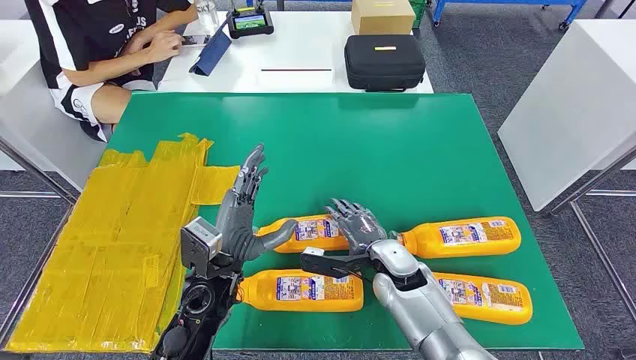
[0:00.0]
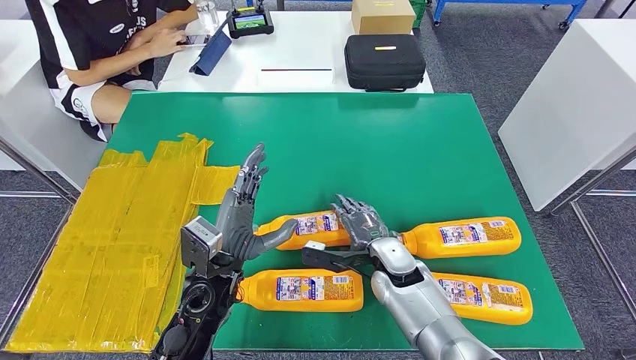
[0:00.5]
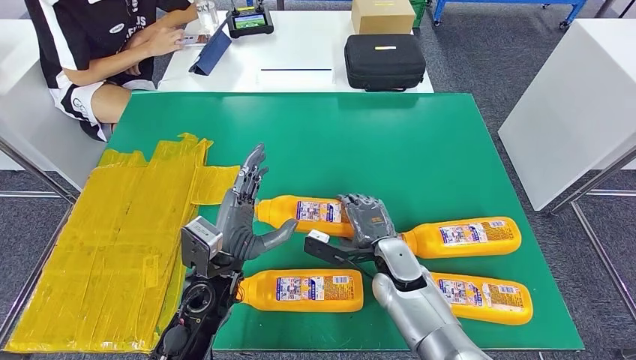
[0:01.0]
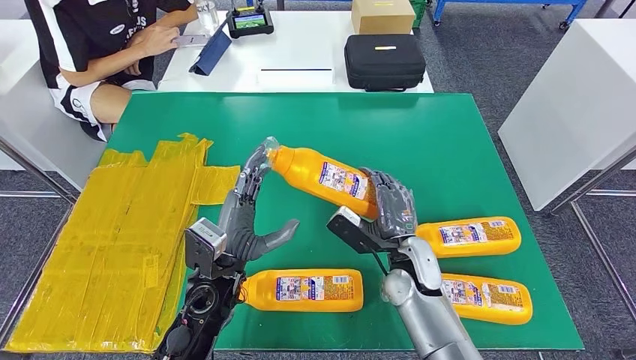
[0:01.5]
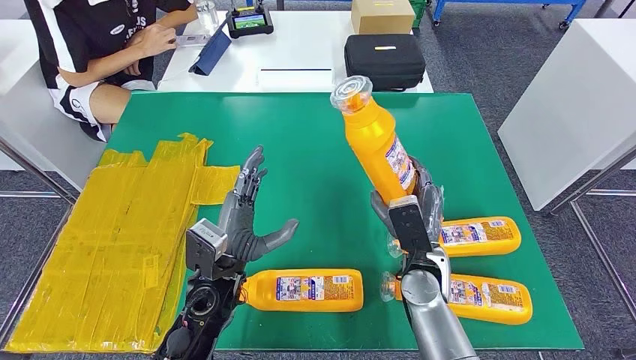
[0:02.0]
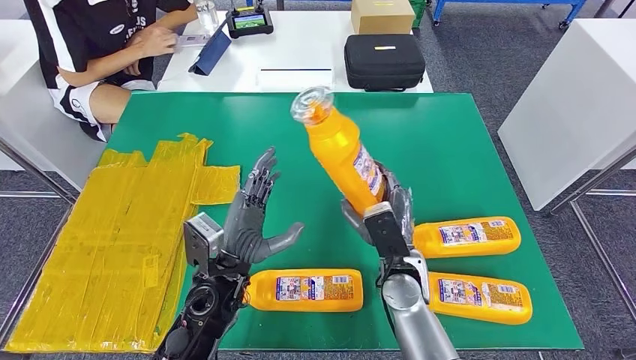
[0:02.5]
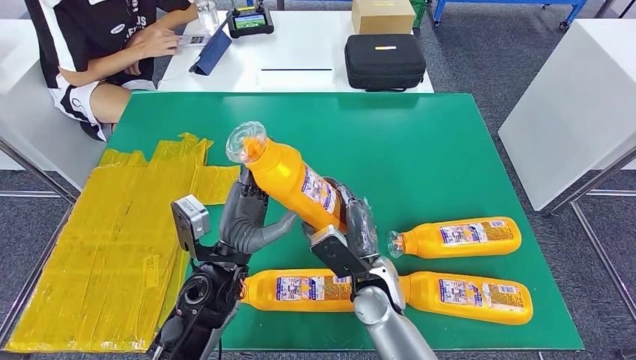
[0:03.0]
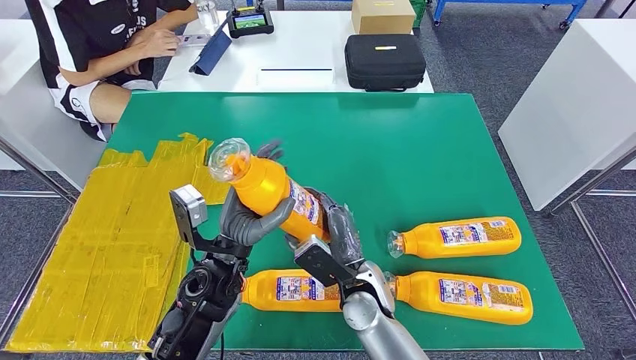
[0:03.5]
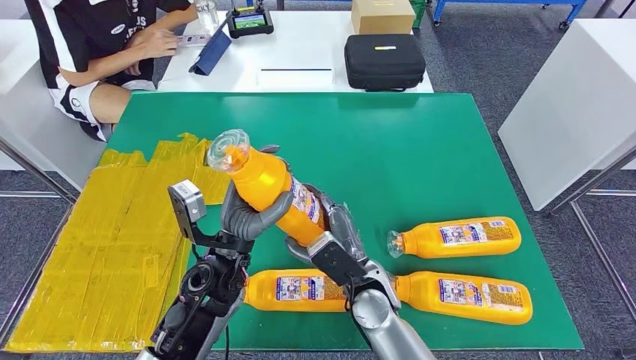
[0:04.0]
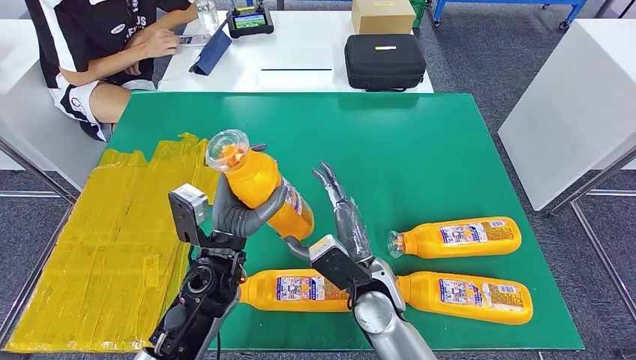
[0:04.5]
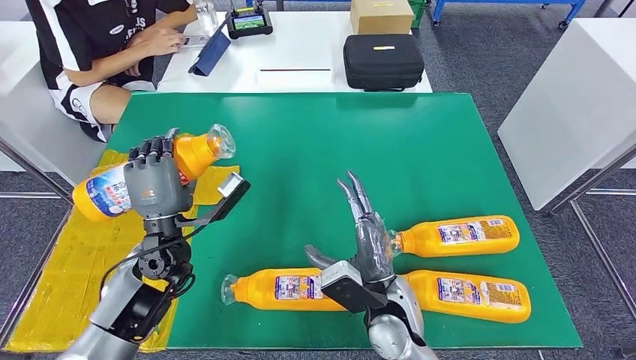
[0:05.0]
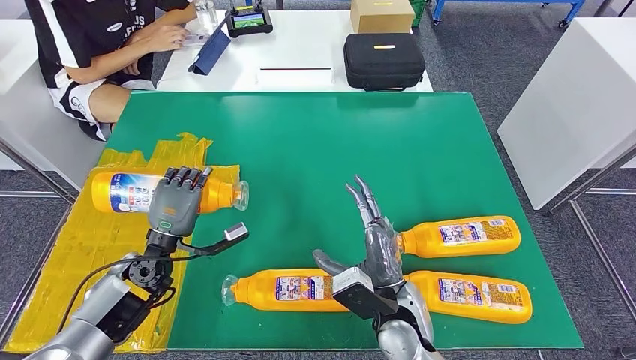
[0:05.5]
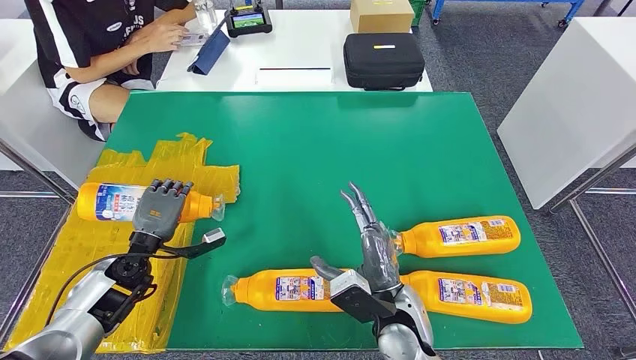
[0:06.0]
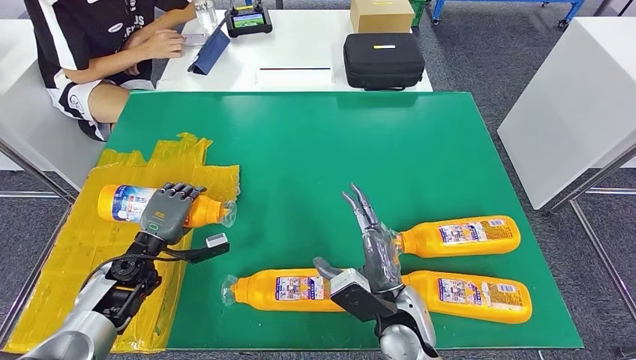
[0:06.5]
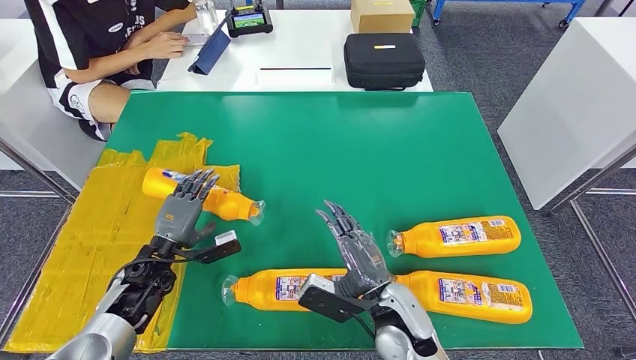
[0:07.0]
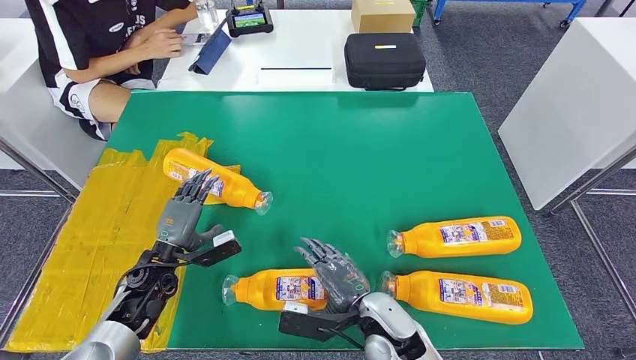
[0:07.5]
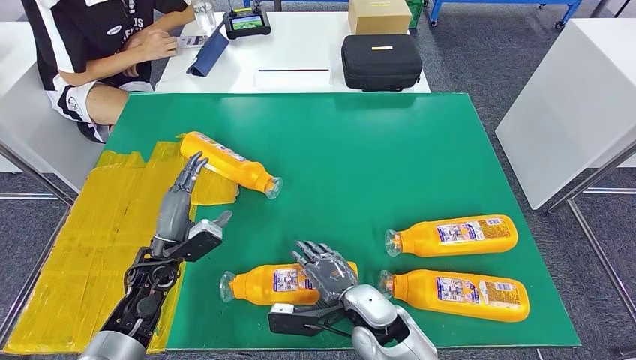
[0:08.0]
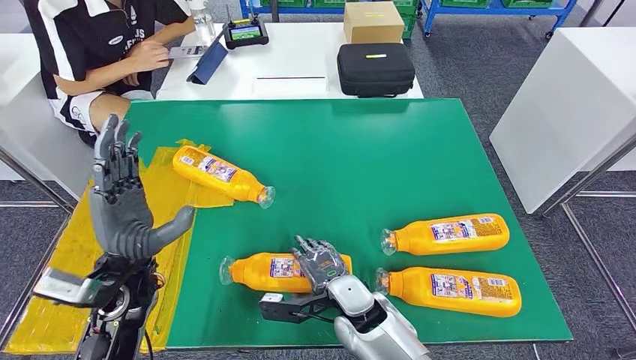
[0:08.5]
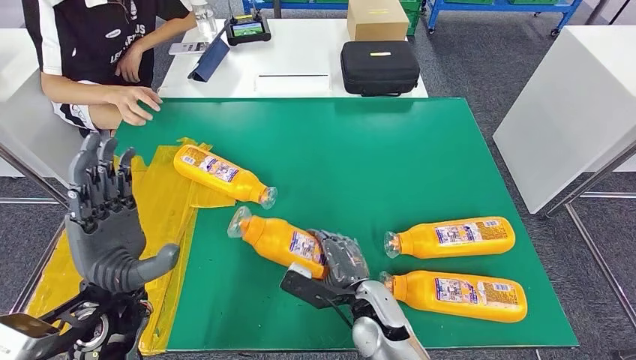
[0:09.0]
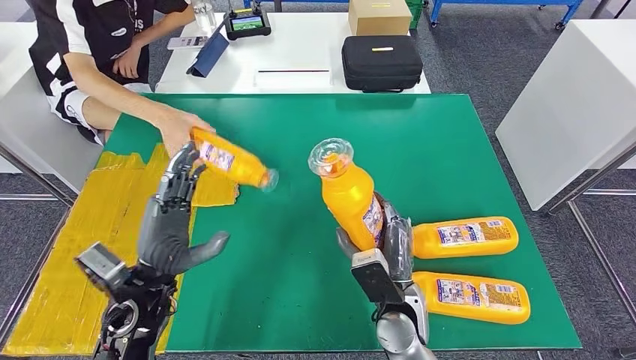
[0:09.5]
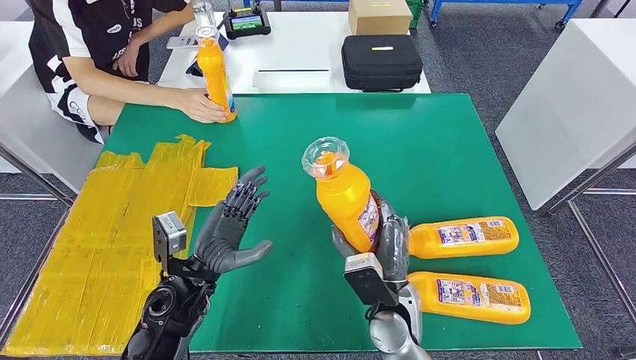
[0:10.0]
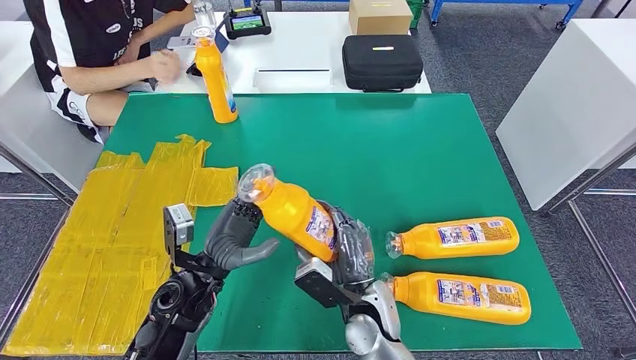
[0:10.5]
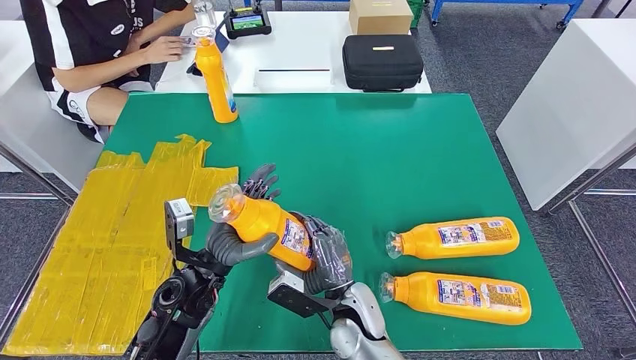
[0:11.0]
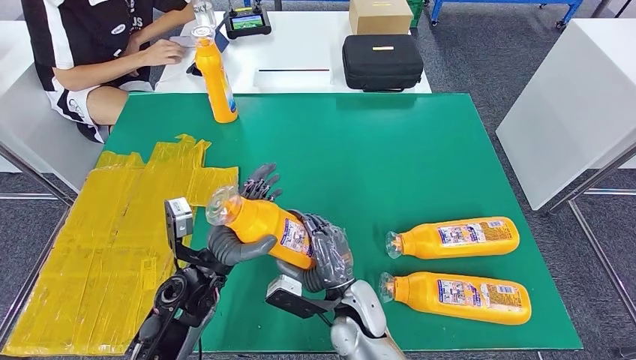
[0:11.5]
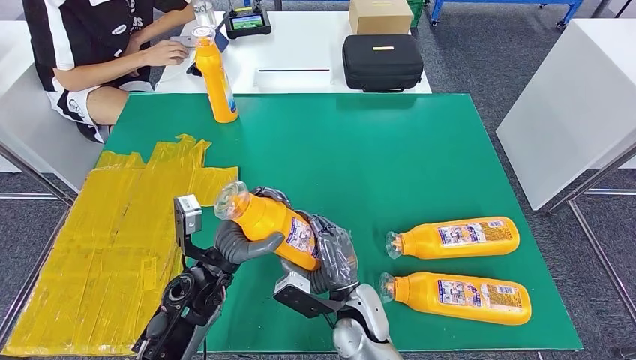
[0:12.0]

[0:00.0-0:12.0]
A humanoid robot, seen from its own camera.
Step, 0:00.0 to 0:02.5: Take the fast-moving consumer goods bottle from the table.
Step, 0:03.0 to 0:06.5: Flip the fast-moving consumer goods bottle to the front side.
Step, 0:07.5 to 0:11.0: Pick up the fast-moving consumer goods bottle from the table.
0:02.0 to 0:04.0: The right hand moves to the left, some 10 cm.
0:10.0 to 0:12.0: The right hand goes about 5 cm to the left.

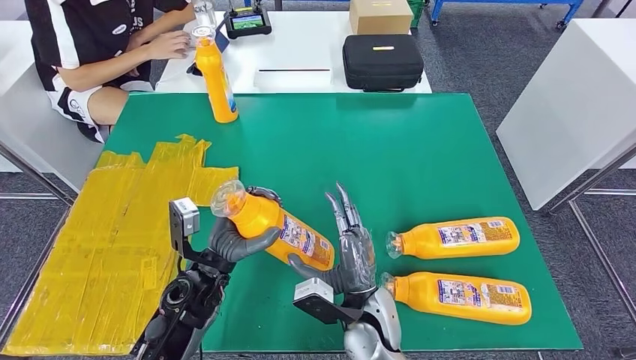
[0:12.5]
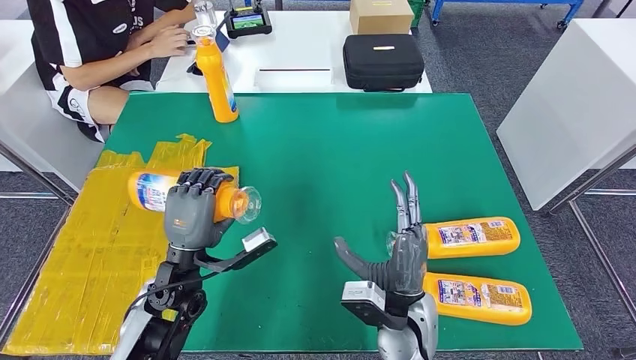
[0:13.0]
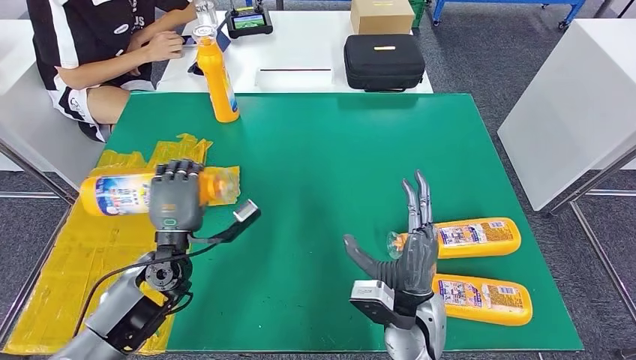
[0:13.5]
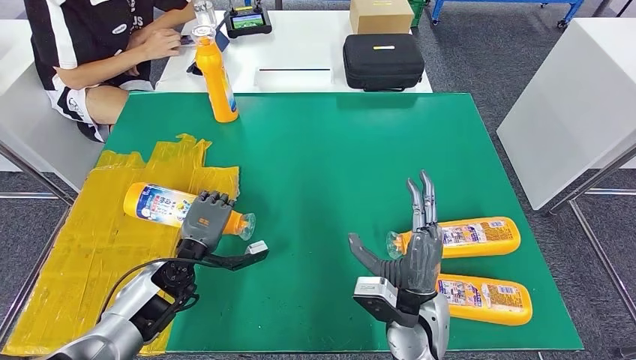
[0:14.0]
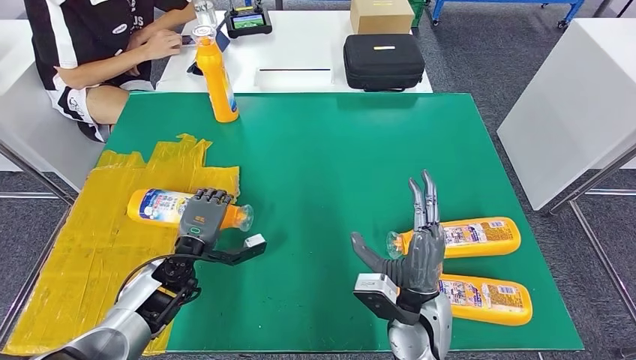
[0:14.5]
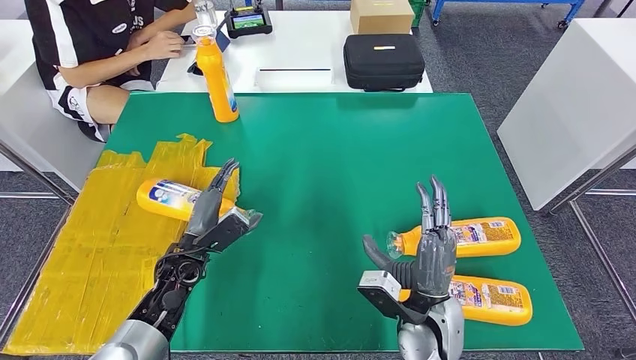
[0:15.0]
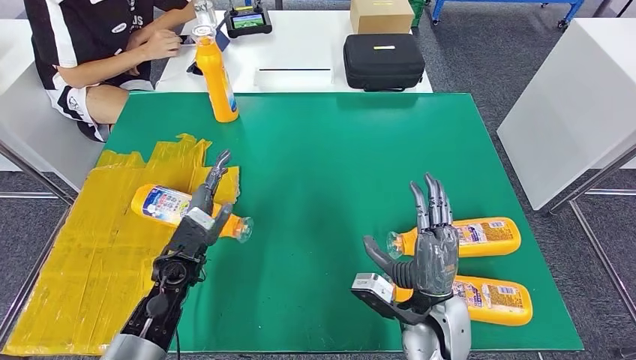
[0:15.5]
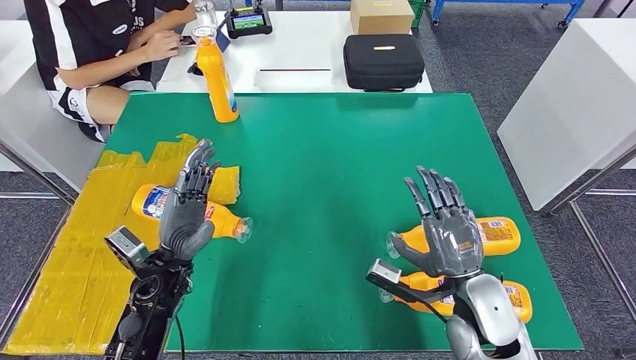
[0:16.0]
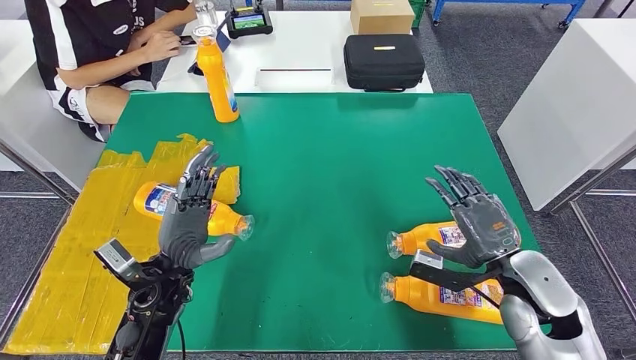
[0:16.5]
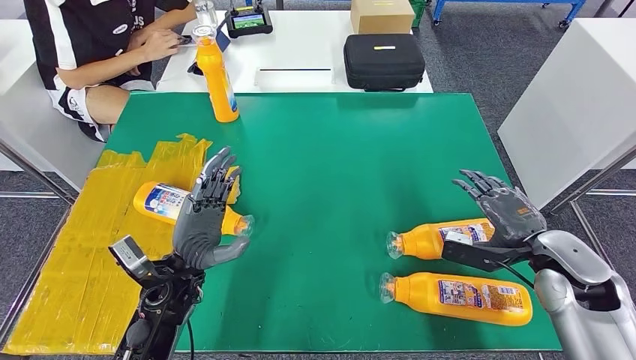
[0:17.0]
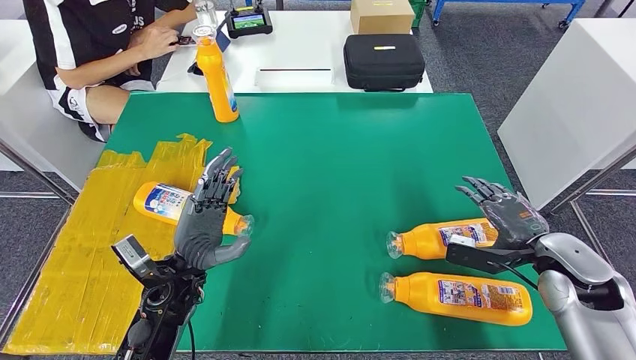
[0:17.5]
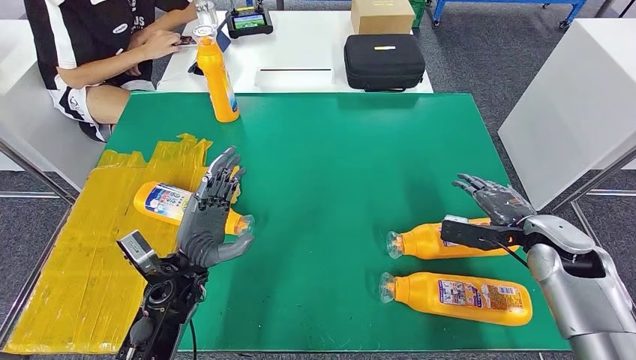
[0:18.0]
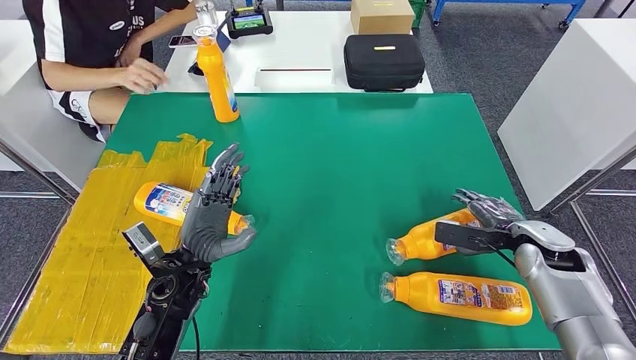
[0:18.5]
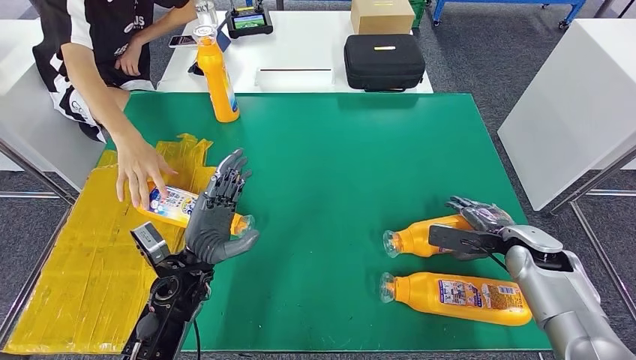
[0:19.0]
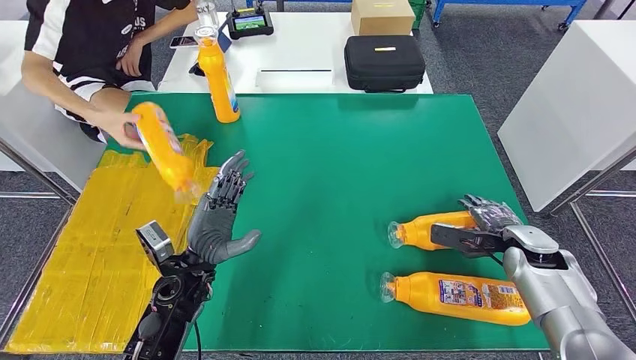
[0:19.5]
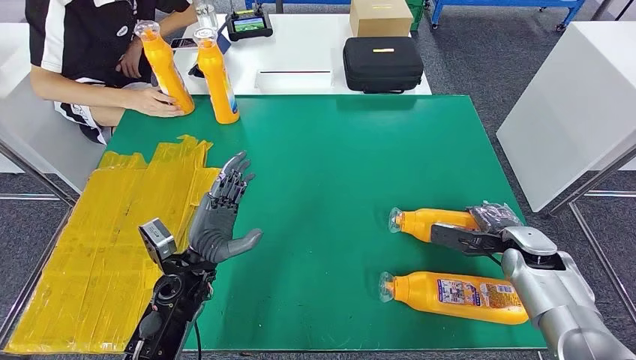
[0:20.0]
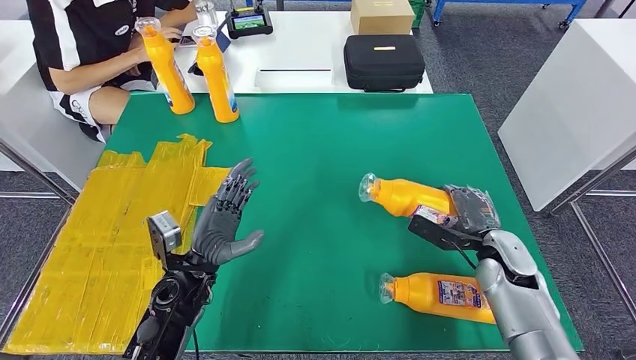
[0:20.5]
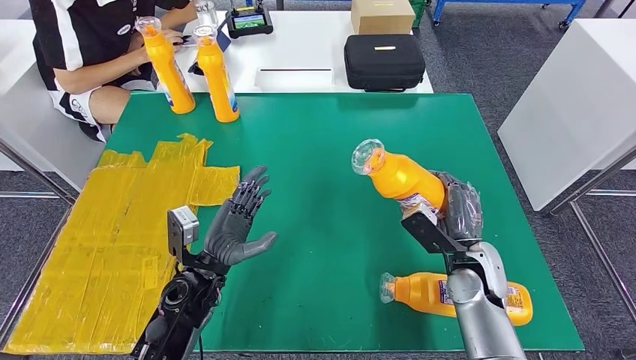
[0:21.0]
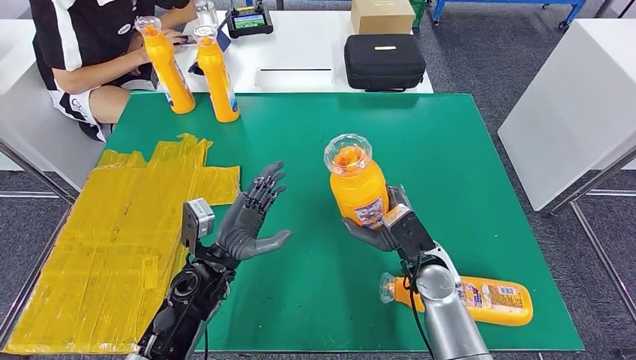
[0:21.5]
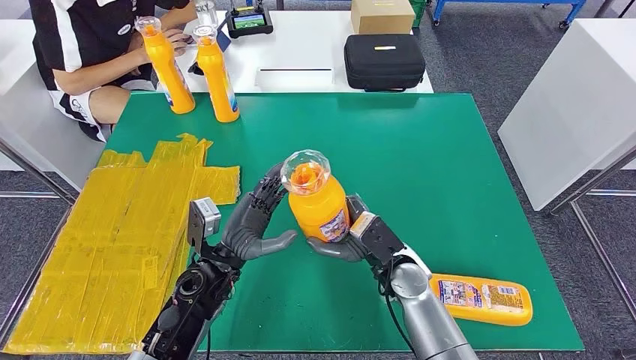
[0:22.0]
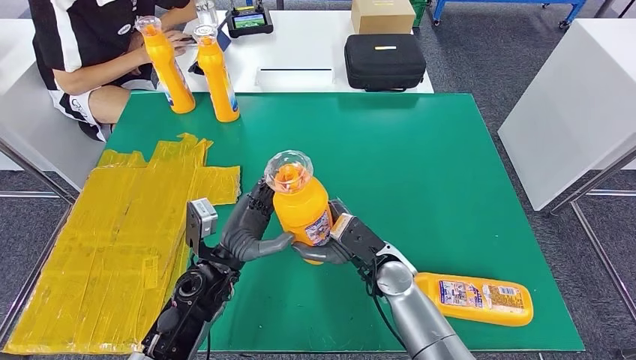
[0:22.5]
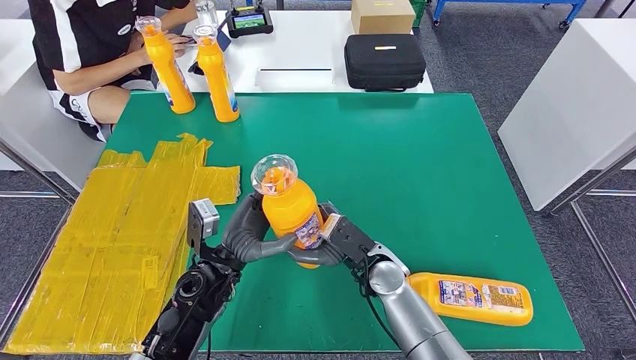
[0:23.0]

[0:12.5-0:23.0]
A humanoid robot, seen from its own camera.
Step, 0:12.5 to 0:14.5: Flip the fast-moving consumer goods bottle to the front side.
Step, 0:15.5 to 0:21.5: Pick up the fast-moving consumer goods bottle from the table.
0:12.5 to 0:14.5: The left hand is displaced to the left, downward and forward by roughly 10 cm, while the right hand goes approximately 5 cm to the right.
0:14.5 to 0:16.5: The left hand shifts about 10 cm upward and backward. The right hand goes some 15 cm to the right.
0:16.5 to 0:19.0: The right hand heads forward, to the right and downward, covering about 15 cm.
0:21.0 to 0:23.0: The right hand travels to the left by roughly 15 cm.
